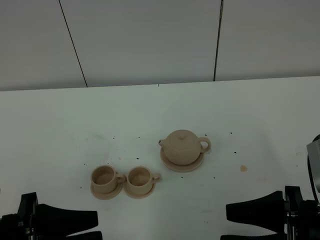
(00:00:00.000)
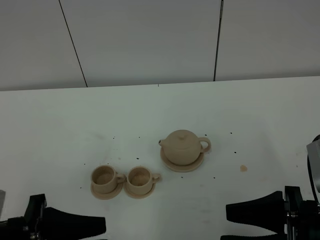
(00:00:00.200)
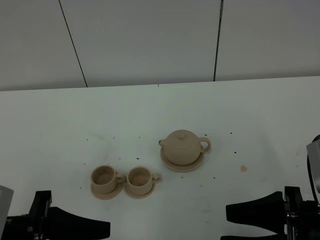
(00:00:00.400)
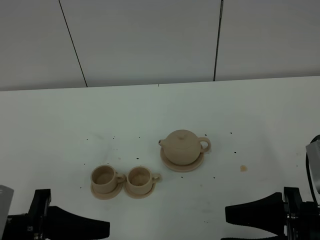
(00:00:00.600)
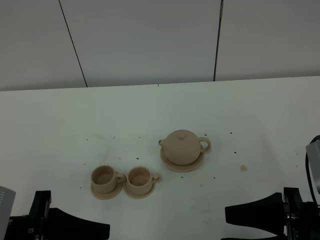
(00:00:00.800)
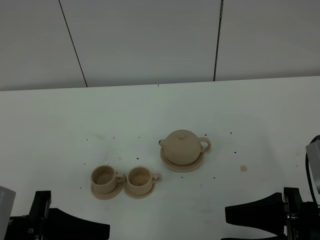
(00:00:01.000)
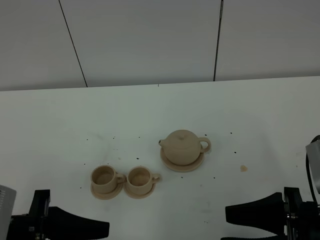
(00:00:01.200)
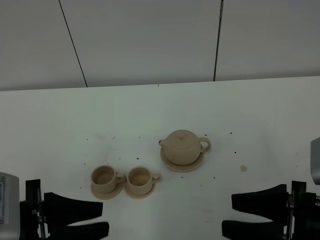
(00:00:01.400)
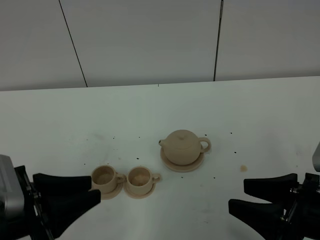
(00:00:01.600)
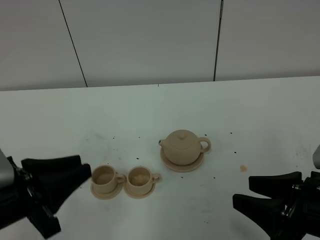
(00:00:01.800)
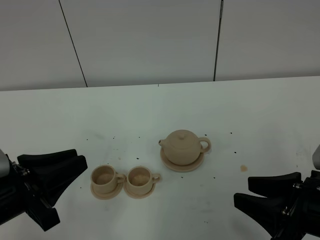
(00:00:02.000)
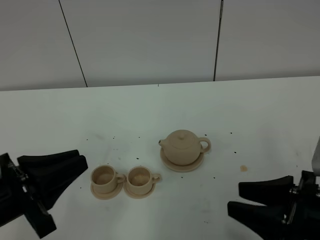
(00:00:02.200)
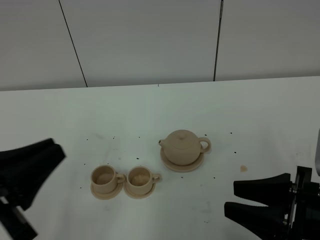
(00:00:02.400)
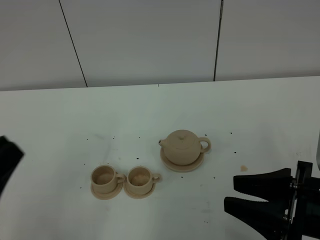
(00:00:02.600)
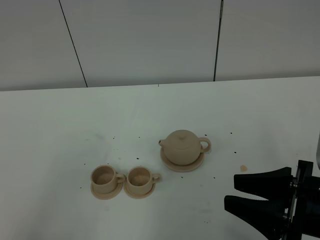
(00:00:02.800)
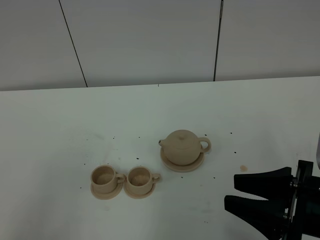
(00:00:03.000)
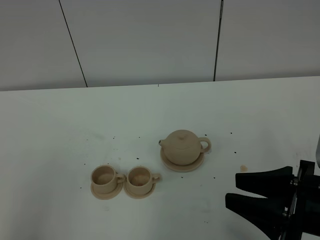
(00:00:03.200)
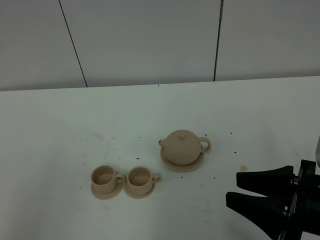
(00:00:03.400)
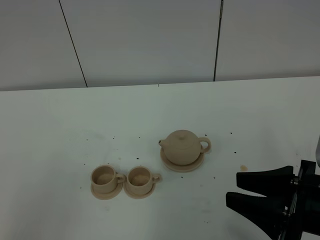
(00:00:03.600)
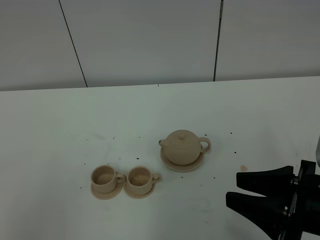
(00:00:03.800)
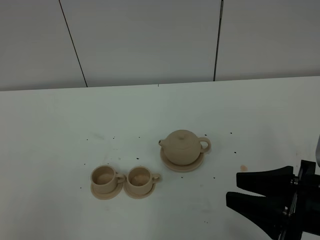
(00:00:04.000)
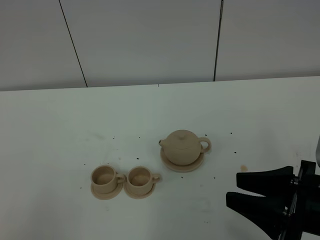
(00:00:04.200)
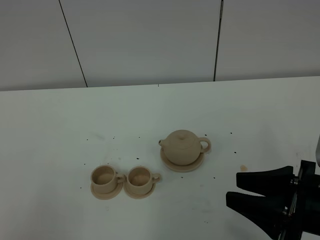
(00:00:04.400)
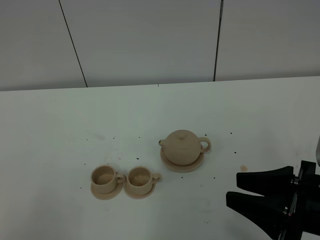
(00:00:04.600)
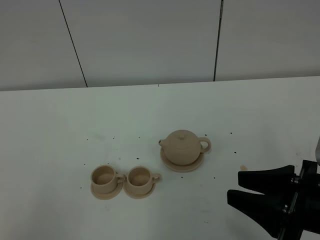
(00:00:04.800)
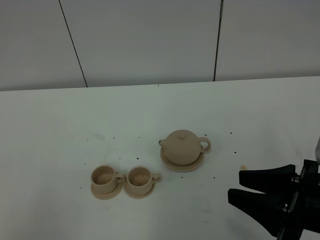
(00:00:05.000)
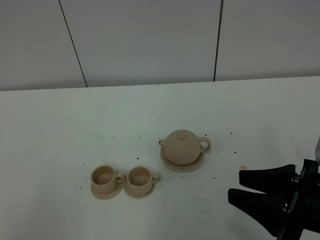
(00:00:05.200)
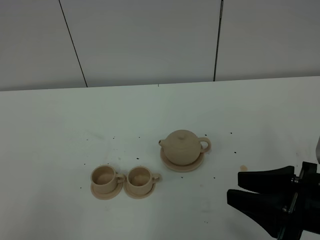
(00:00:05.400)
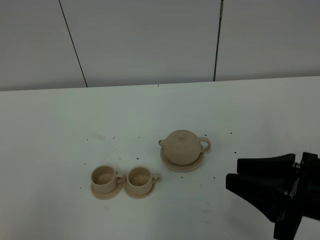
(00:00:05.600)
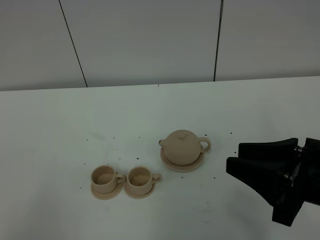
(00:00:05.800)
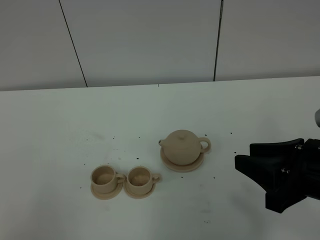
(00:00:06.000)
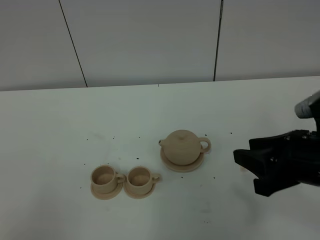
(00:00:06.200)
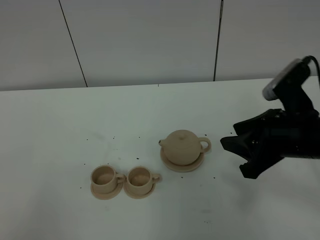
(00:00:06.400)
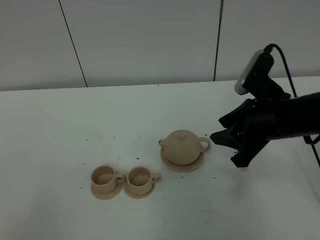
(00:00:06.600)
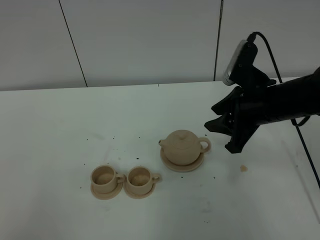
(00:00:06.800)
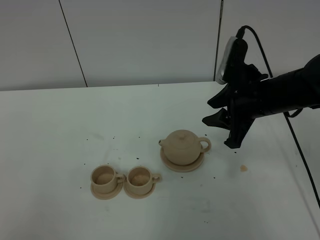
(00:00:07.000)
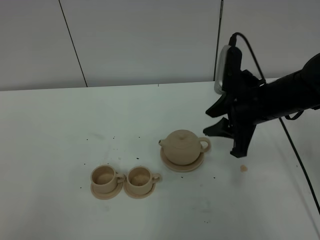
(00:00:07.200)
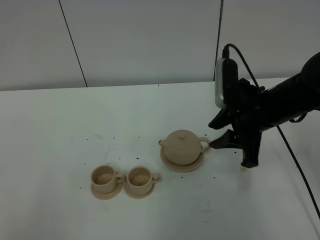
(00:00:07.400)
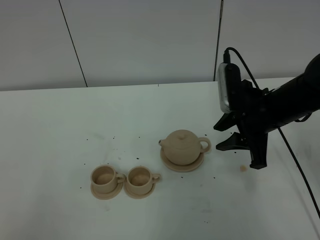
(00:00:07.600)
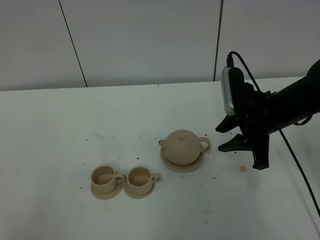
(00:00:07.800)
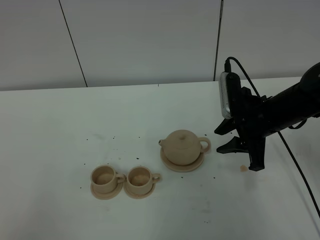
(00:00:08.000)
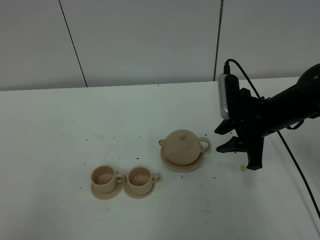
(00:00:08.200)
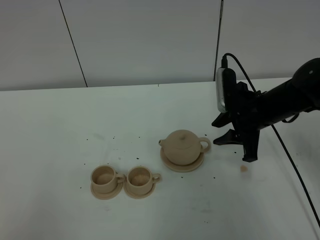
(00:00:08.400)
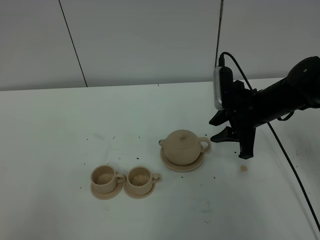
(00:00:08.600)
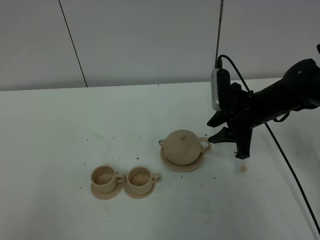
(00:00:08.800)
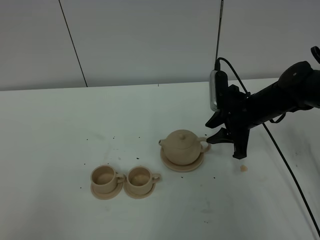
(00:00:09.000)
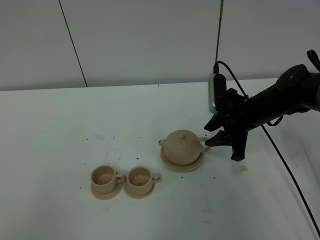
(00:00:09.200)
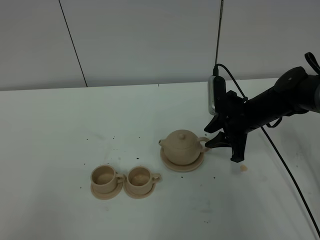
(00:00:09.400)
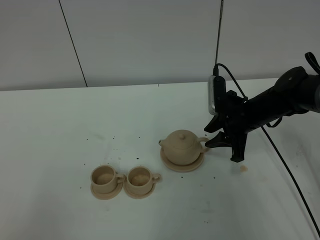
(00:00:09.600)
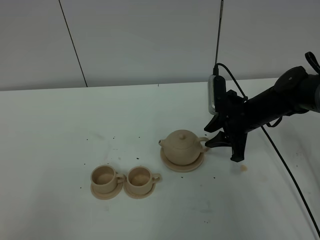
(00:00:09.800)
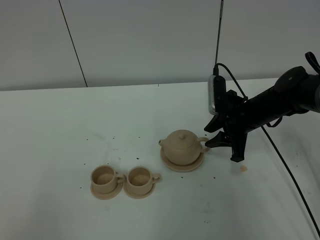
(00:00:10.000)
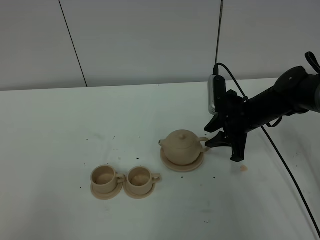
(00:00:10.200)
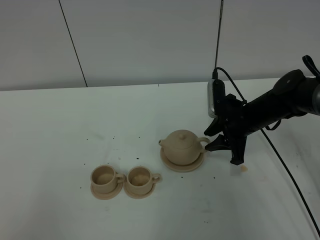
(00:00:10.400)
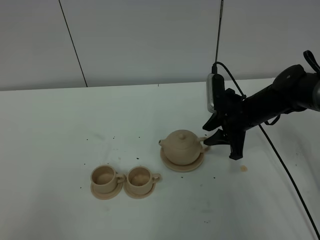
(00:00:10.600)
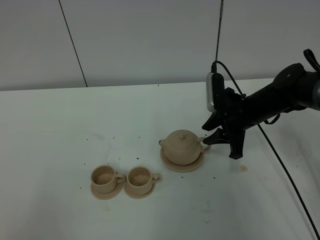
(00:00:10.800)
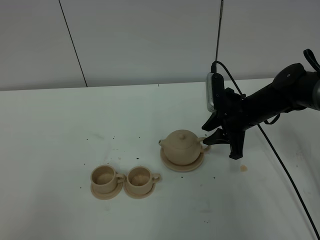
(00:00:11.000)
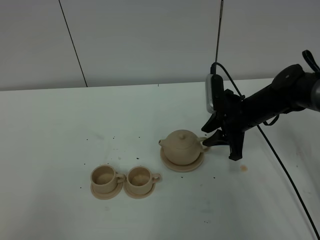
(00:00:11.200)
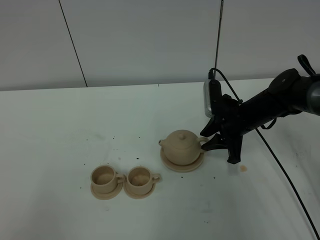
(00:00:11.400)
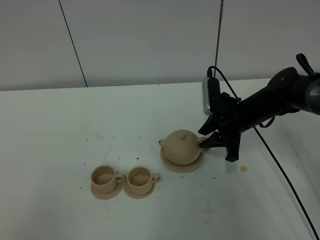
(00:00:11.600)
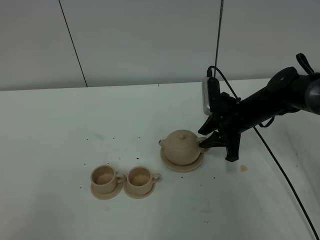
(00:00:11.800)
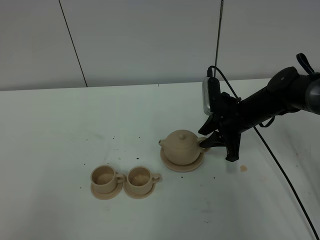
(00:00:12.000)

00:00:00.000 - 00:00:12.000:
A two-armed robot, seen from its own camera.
Task of the whole recording: grasp the brown teapot and pour the tea into the two brown teacups one by one, put the brown teapot back in its original place.
00:00:00.000 - 00:00:01.600: There are only small adjustments of the grippers.
00:00:01.600 - 00:00:03.000: The left gripper goes about 15 cm upward and backward.
00:00:04.400 - 00:00:06.000: The grippers make only small movements.
00:00:06.000 - 00:00:07.600: The right gripper moves forward, approximately 15 cm.
00:00:07.600 - 00:00:09.000: The right gripper shifts about 10 cm downward and forward.
00:00:09.000 - 00:00:10.400: The grippers move only a little.
00:00:10.400 - 00:00:12.000: Neither gripper changes place.

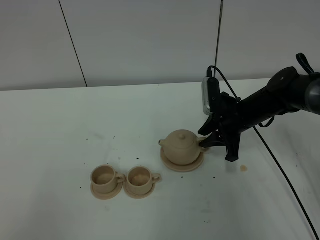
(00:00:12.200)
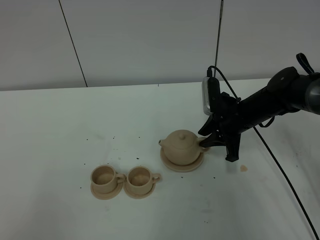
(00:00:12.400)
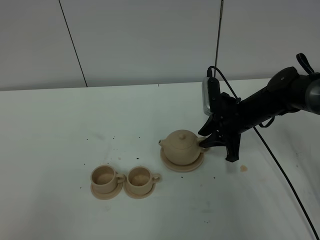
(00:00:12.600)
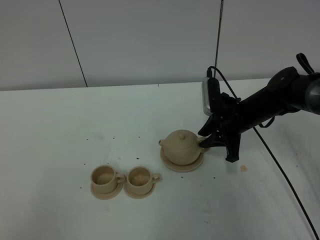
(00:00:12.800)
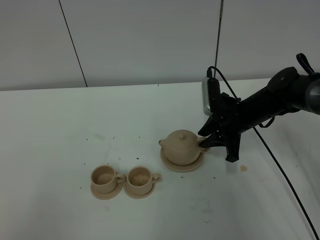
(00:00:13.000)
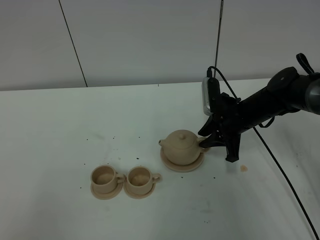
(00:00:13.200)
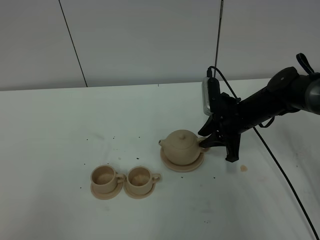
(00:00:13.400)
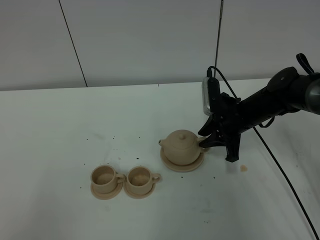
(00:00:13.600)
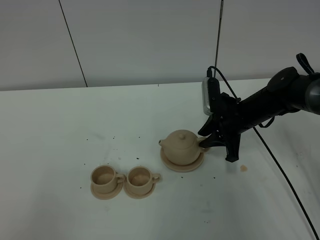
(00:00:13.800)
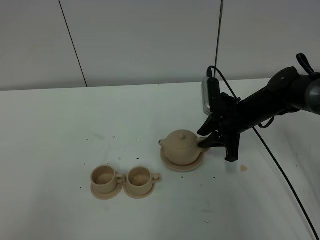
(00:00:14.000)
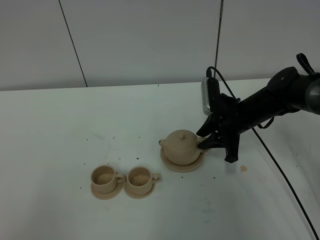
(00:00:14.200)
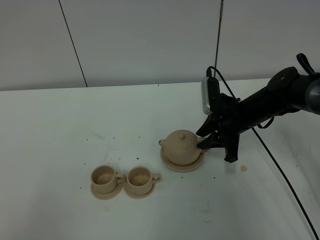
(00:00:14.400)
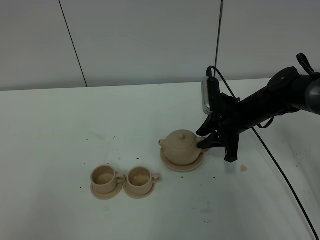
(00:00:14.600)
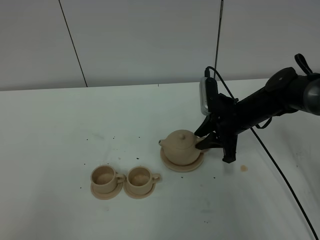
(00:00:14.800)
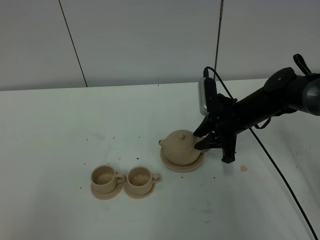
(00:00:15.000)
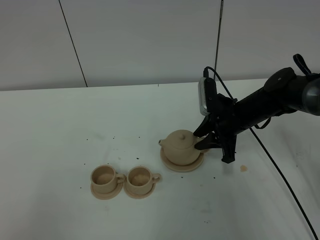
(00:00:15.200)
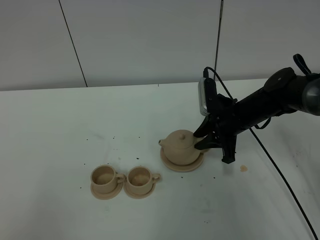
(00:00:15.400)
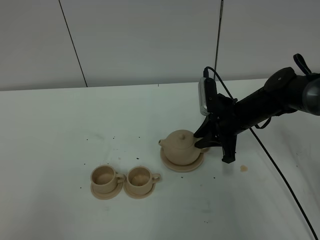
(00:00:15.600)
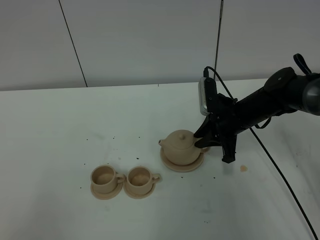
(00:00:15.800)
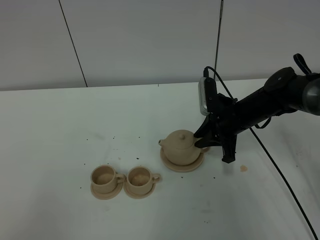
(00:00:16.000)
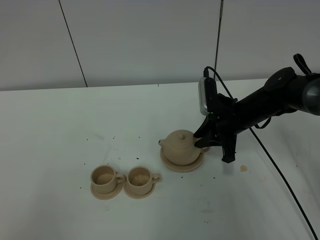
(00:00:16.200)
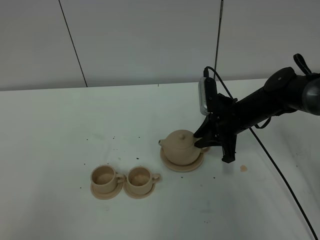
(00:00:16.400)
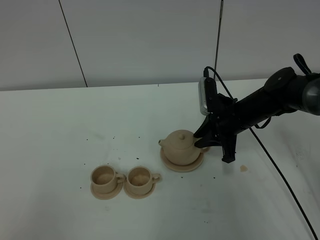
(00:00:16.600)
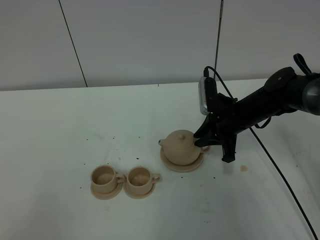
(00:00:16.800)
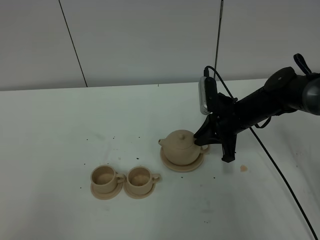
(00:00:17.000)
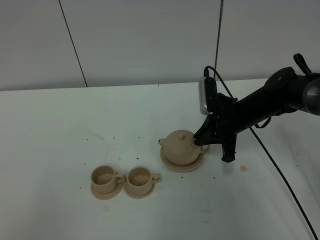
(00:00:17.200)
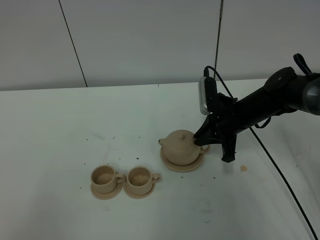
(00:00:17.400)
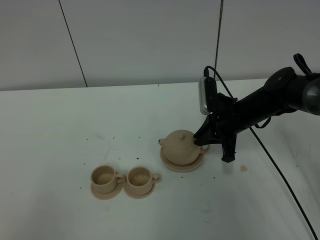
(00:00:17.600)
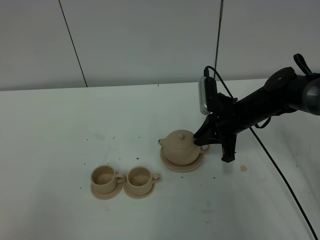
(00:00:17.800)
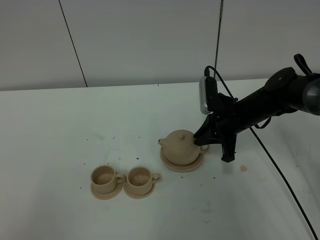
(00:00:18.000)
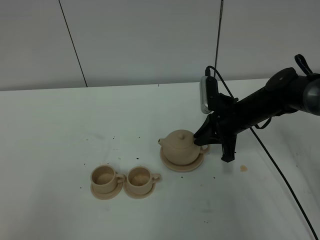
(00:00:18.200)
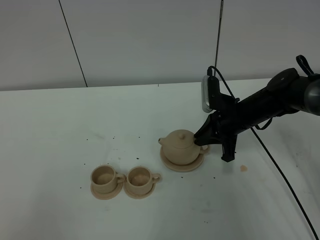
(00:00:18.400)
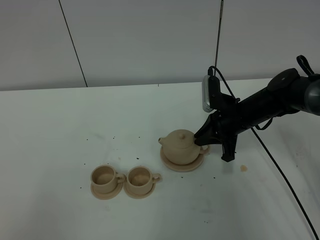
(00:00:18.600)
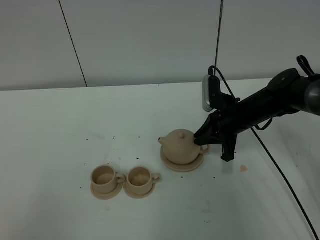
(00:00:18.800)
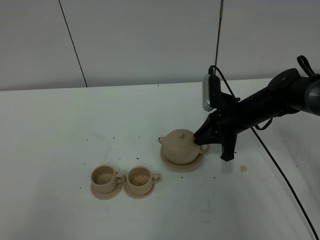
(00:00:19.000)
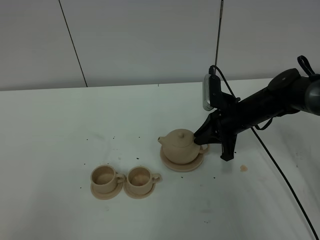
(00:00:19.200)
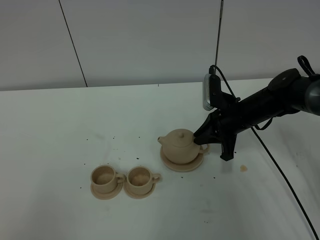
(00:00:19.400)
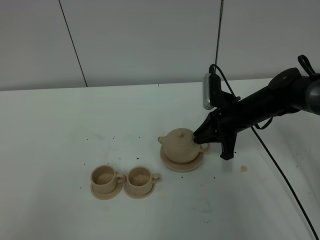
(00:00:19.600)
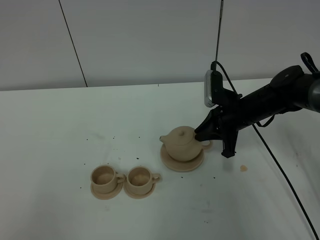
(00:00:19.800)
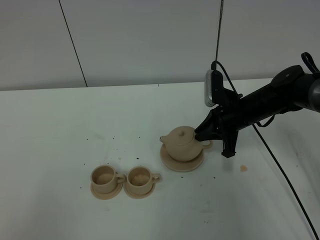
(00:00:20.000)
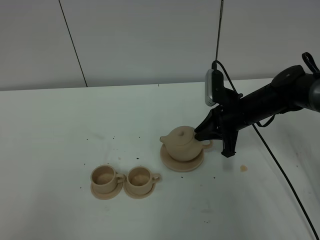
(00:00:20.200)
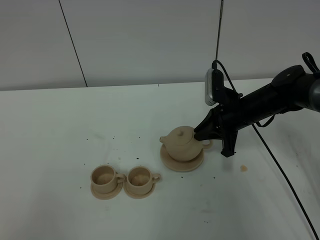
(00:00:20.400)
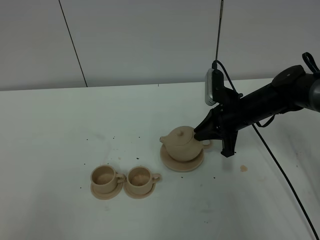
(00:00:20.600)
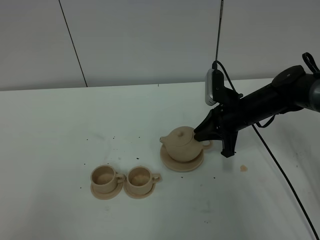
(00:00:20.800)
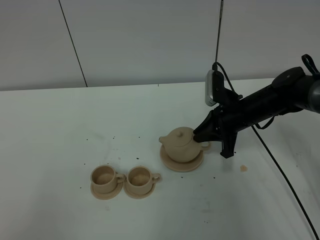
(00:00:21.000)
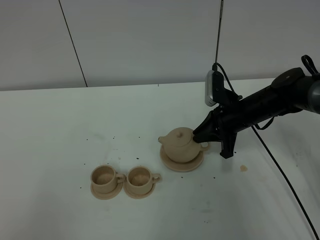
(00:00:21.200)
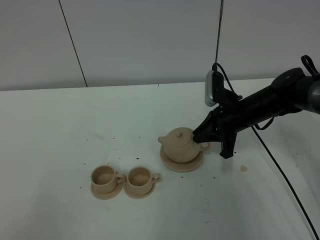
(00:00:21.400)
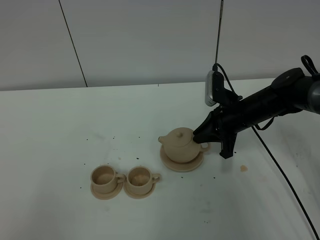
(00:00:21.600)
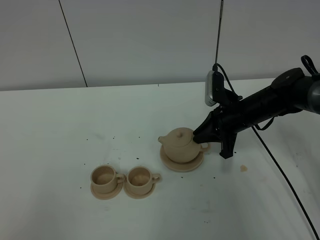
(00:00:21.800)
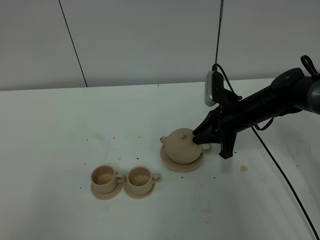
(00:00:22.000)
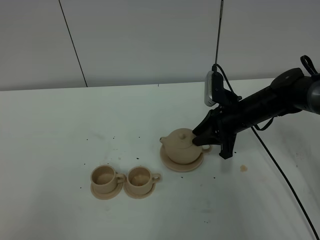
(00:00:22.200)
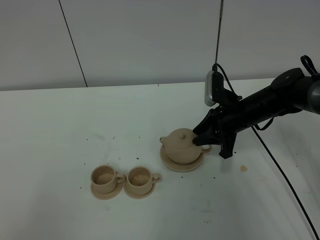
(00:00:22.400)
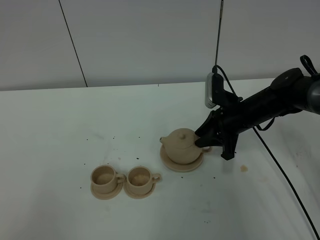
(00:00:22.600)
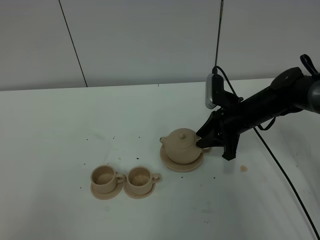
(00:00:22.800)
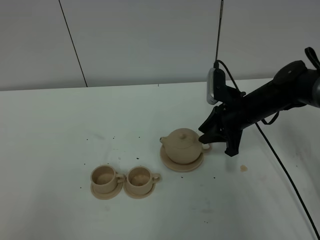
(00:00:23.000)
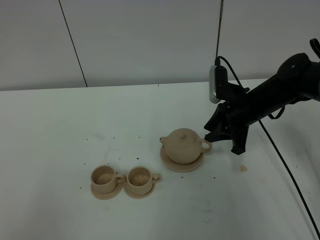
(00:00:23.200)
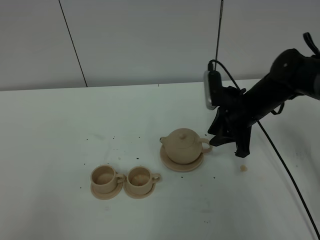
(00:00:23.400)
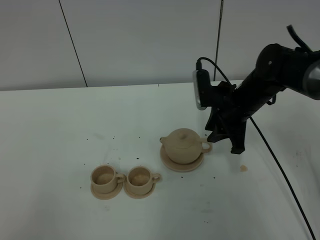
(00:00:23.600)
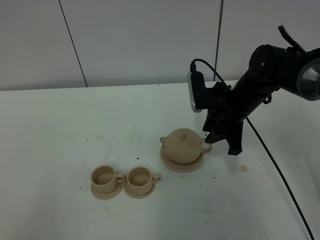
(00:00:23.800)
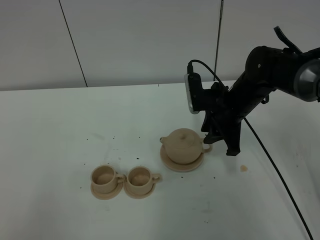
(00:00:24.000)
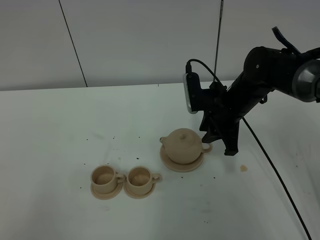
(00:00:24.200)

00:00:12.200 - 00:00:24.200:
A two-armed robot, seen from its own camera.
Task of the whole recording: grasp the brown teapot and pour the tea into the two brown teacups one by one, put the brown teapot back in its original place.
00:00:12.200 - 00:00:16.600: Neither gripper changes place.
00:00:16.600 - 00:00:18.200: The right gripper closes.
00:00:18.200 - 00:00:19.800: Both grippers stay put.
00:00:19.800 - 00:00:21.200: The two grippers keep their place.
00:00:21.200 - 00:00:22.600: The right gripper opens up.
00:00:22.600 - 00:00:24.200: The right gripper travels upward by about 5 cm.
